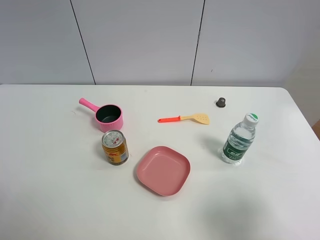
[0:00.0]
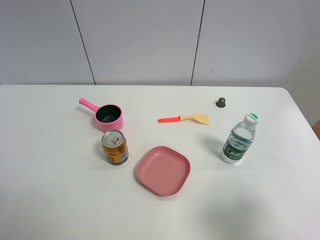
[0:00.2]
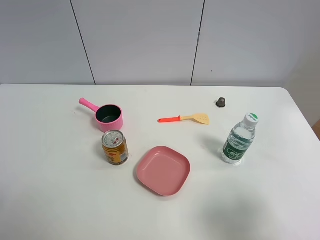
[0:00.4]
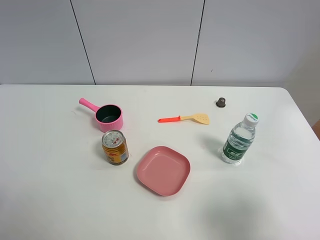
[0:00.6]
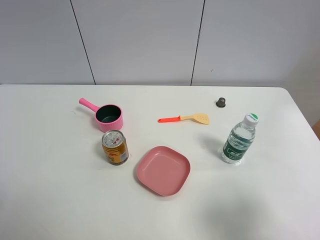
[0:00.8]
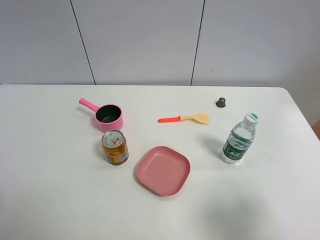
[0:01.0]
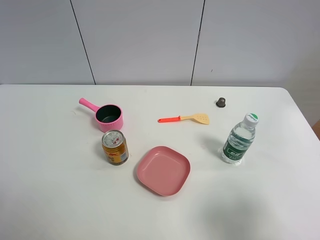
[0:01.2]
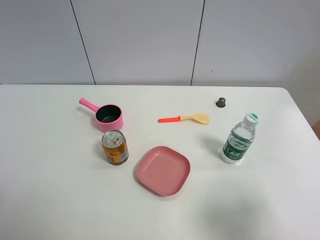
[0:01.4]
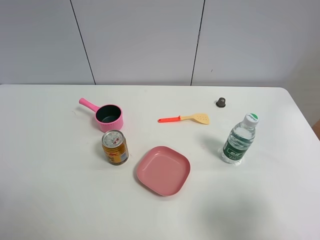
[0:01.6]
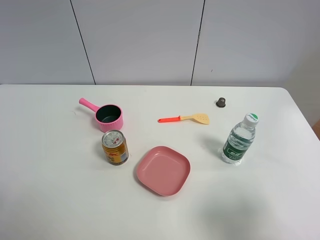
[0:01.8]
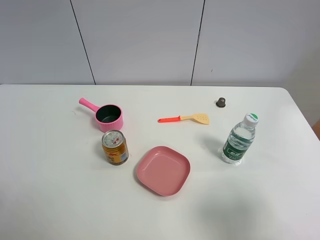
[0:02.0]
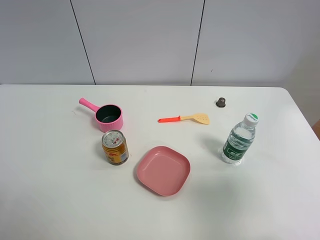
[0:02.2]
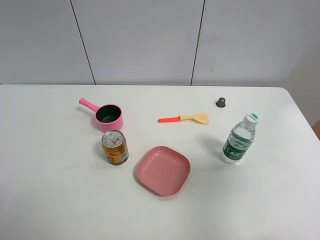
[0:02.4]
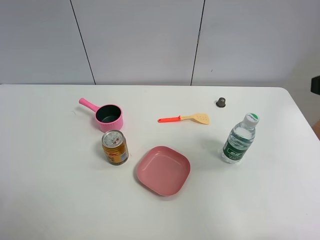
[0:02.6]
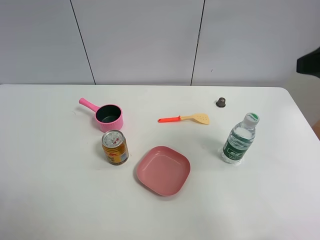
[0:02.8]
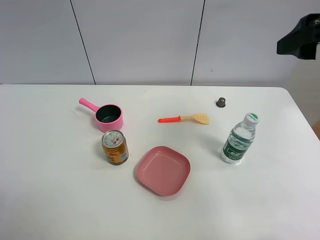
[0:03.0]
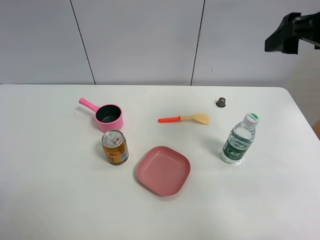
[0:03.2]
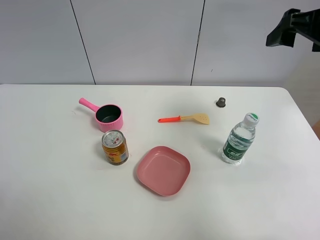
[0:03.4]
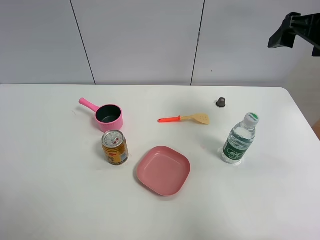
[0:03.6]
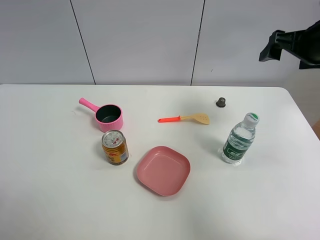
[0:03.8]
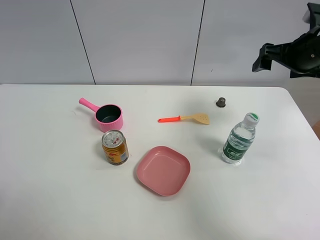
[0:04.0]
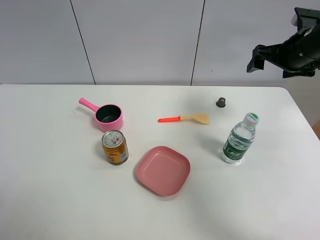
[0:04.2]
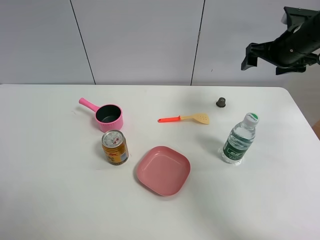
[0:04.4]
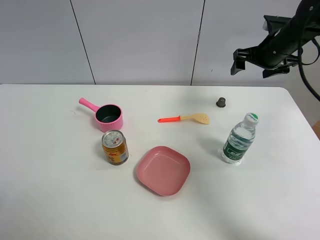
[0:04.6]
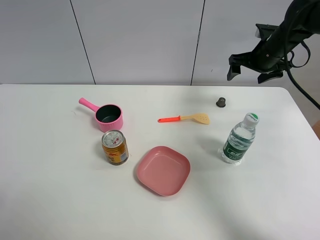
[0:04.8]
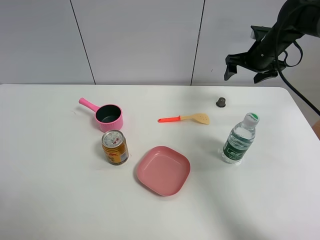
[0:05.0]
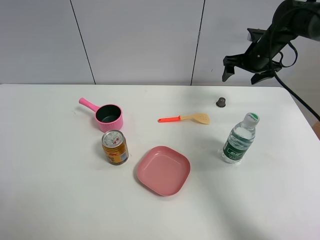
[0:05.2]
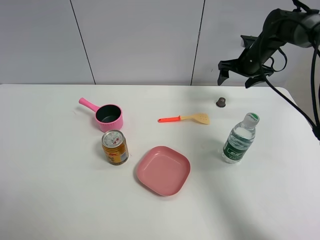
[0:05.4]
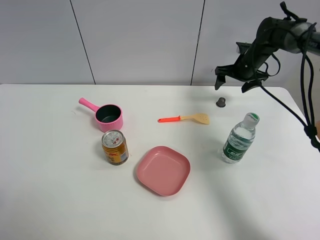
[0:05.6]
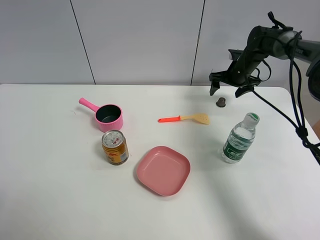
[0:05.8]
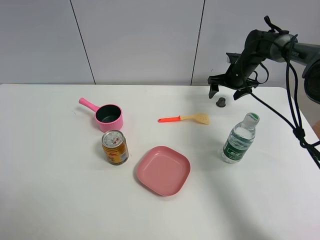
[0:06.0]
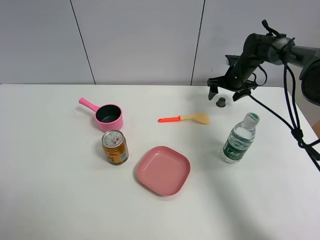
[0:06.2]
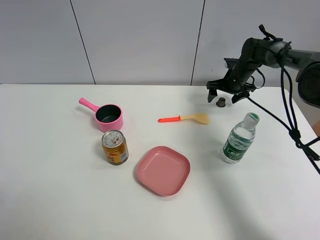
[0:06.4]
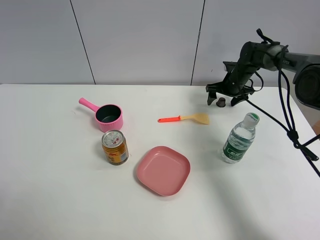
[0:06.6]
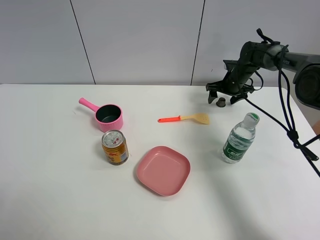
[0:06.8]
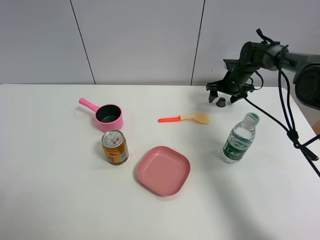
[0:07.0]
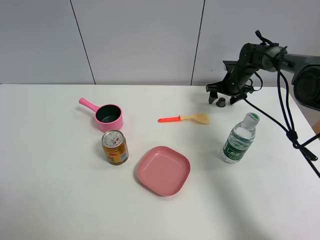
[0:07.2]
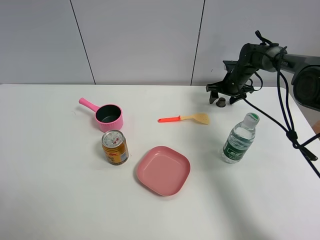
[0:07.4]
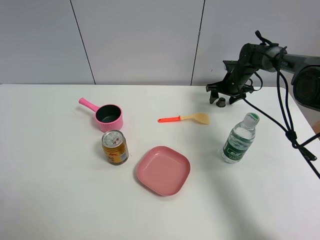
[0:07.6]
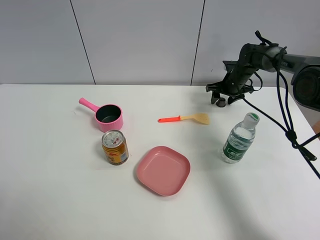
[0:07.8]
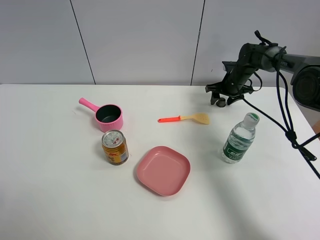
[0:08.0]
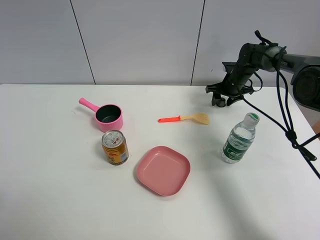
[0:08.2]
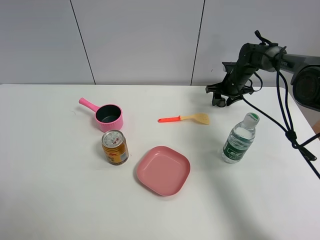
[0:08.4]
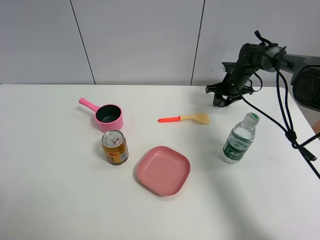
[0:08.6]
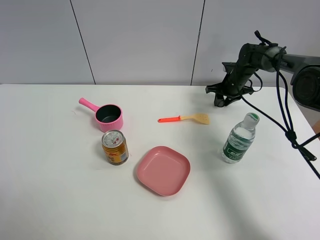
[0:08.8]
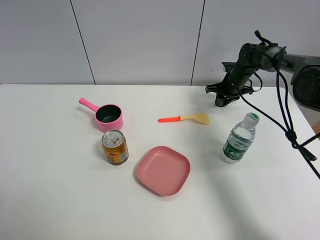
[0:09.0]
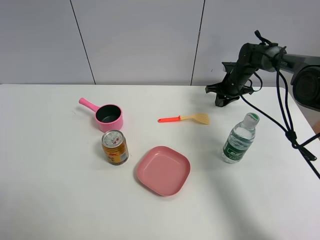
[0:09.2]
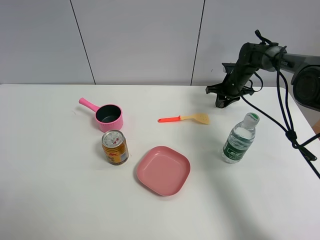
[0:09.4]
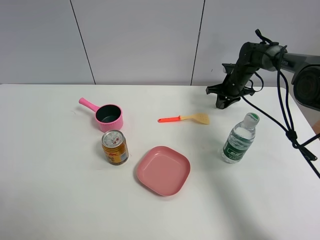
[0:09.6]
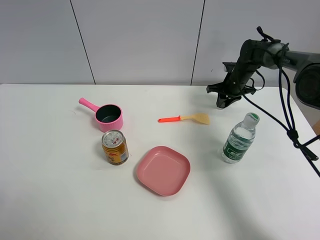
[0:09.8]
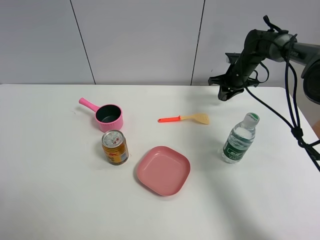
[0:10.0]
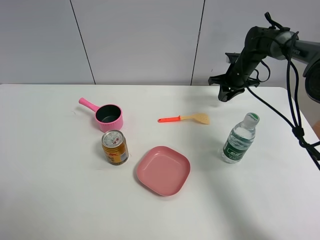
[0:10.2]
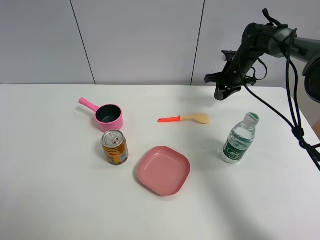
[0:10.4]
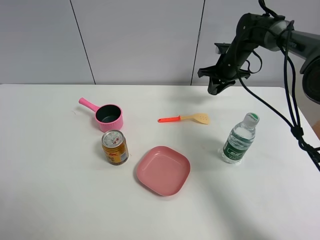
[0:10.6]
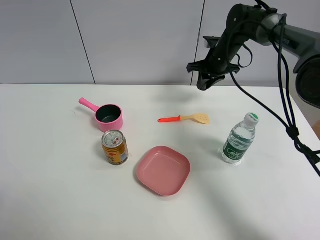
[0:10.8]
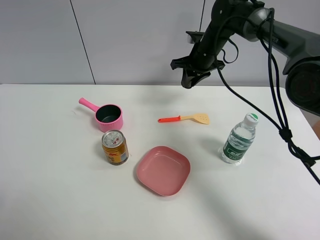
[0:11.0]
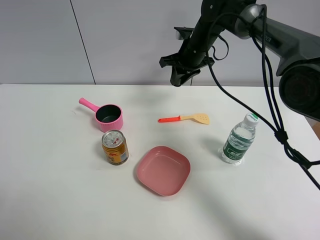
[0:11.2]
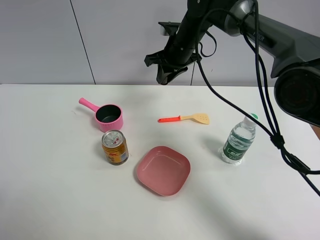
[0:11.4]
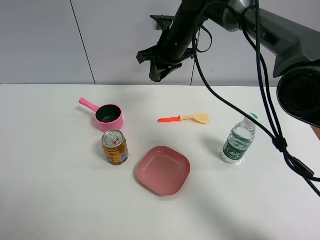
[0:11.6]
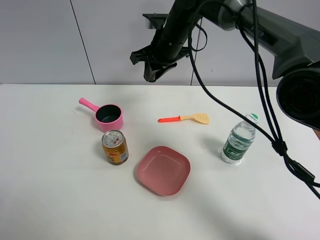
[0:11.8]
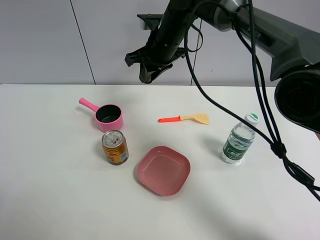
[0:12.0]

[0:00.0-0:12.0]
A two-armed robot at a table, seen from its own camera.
Task of the whole recording: the gripper move the object.
Step, 0:00.0 to 0:08.8: Grasp the coffee capsule with the right gripper.
0:00.0 to 0:01.6: Both grippers stay put.
0:01.6 to 0:03.0: The right gripper travels forward and upward by approximately 25 cm.
0:03.0 to 0:04.4: The right gripper moves forward and downward, roughly 20 cm.
0:04.4 to 0:06.0: The right gripper shifts about 20 cm downward and forward.
0:06.0 to 0:07.6: The grippers stay close to where they were, moving slightly.
0:07.6 to 0:09.0: The right gripper closes its fingers.
0:09.0 to 0:10.4: The right gripper goes approximately 5 cm upward.
0:10.4 to 0:12.0: The right gripper travels to the left, upward and backward by about 25 cm.

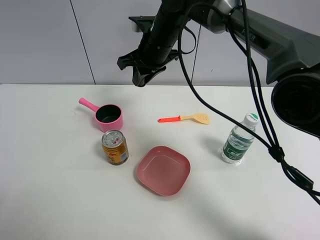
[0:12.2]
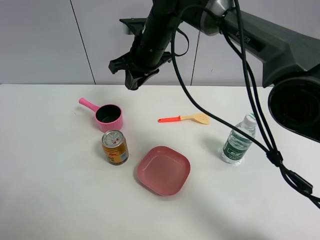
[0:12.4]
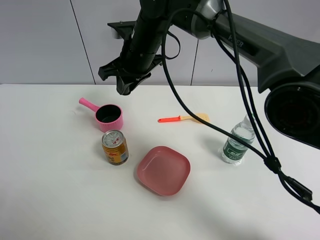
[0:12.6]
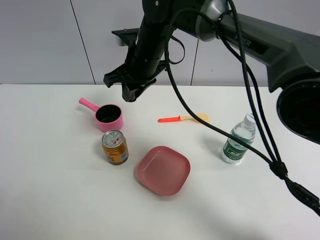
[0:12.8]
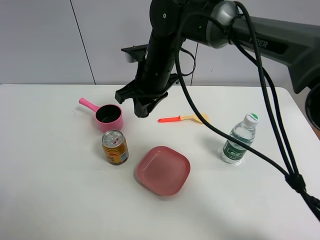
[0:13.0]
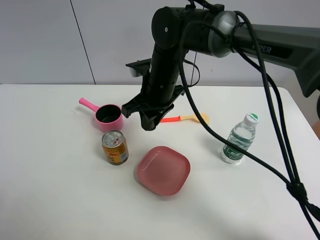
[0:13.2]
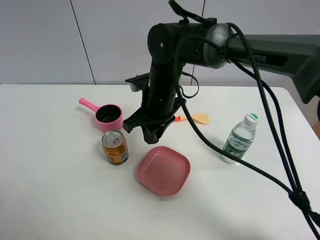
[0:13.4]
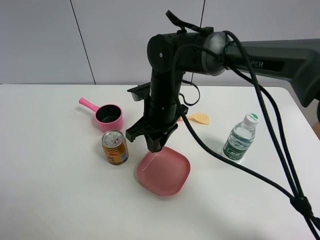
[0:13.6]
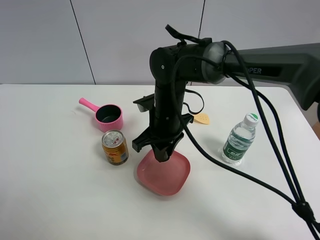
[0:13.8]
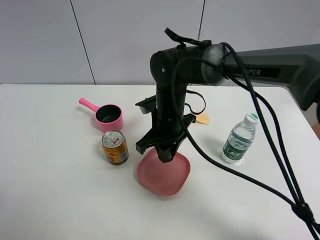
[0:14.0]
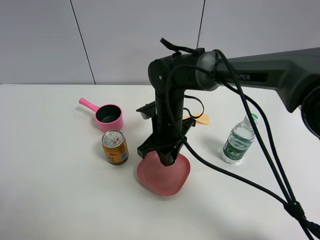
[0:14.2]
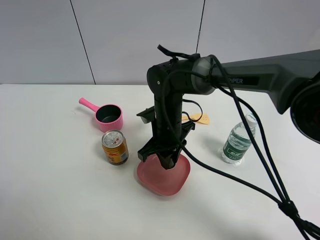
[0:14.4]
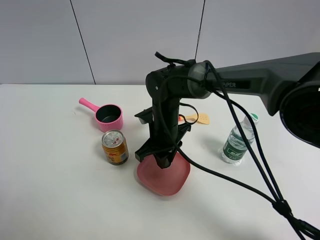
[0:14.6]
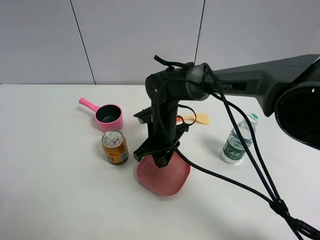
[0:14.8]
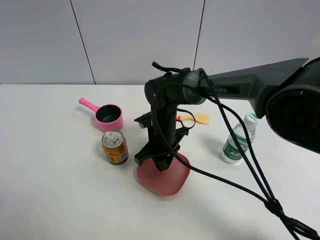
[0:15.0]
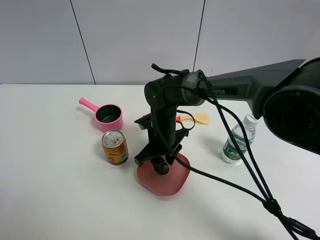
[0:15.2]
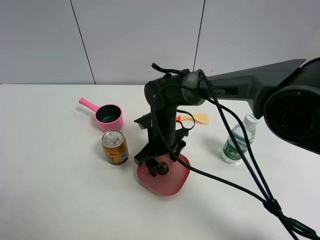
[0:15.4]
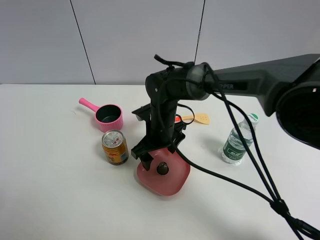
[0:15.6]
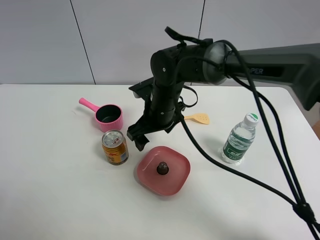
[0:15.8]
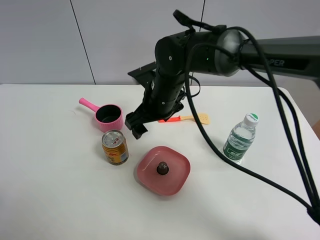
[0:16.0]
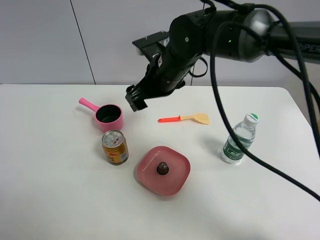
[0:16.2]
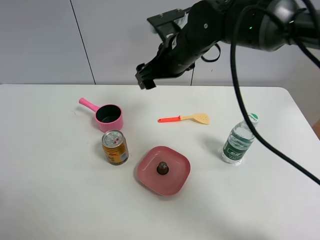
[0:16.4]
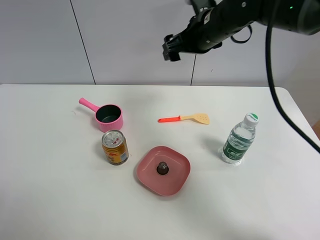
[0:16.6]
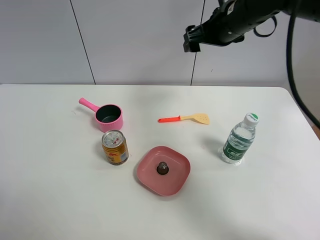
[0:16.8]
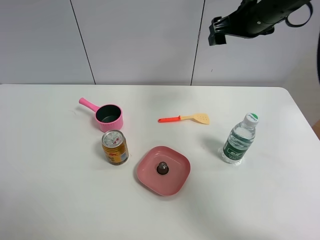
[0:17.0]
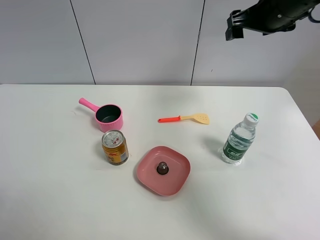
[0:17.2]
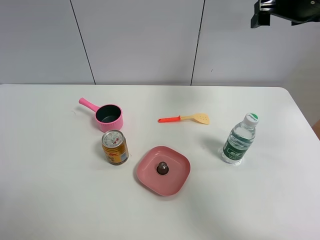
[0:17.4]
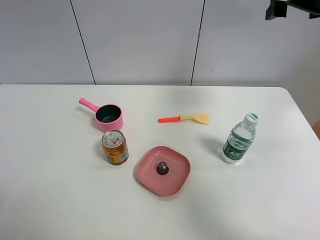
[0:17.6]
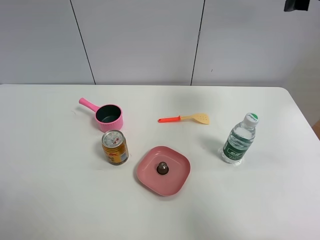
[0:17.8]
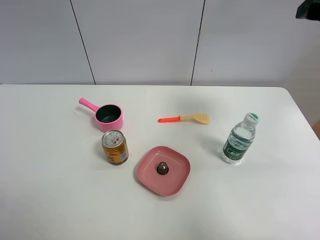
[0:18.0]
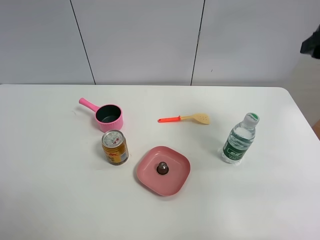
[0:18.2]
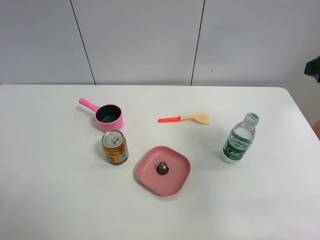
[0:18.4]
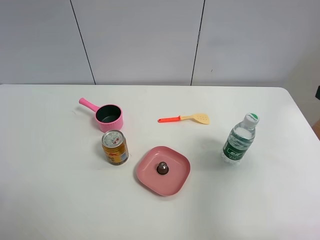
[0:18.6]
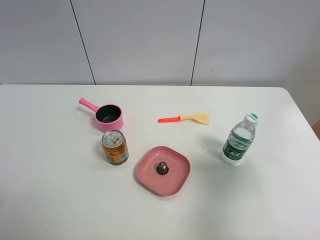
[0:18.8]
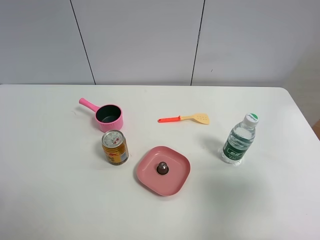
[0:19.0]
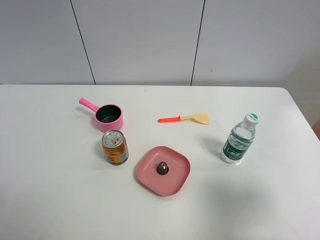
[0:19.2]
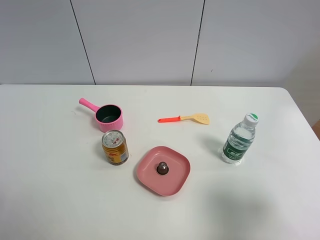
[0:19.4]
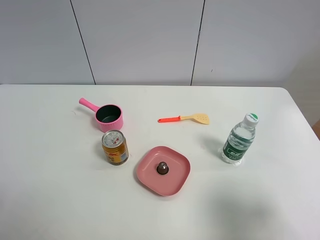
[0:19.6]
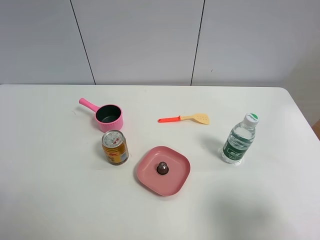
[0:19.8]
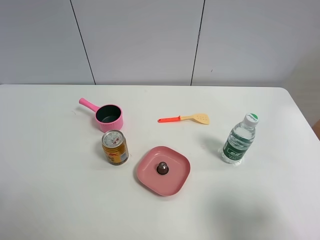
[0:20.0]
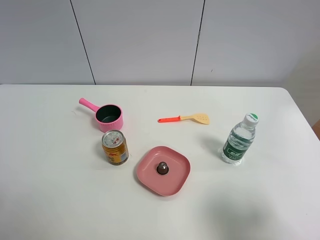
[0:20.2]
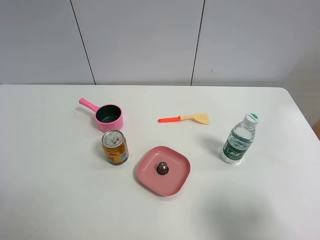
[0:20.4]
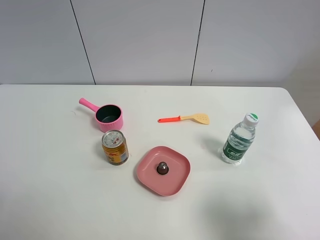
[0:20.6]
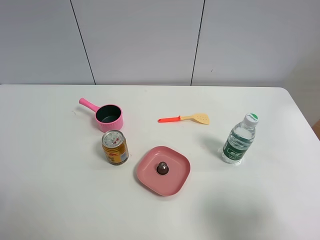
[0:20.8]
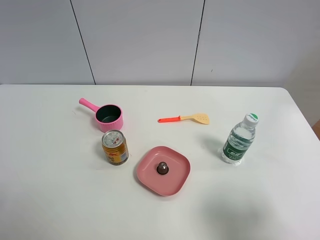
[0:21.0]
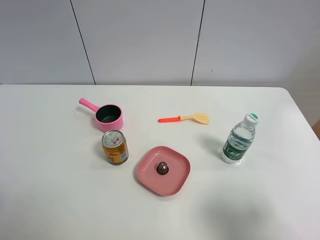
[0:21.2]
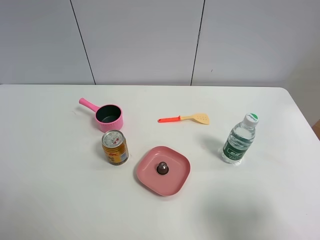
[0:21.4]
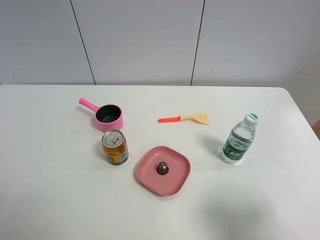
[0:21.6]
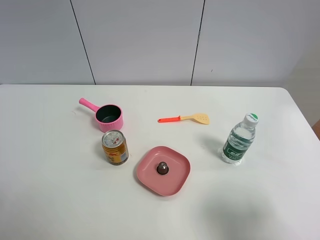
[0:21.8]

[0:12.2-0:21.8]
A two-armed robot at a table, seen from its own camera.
Task of the whole recording: the gripper move the object.
Step, 0:12.2 to 0:15.6: Place the coffee capsule into the pink plate with the right gripper.
0:12.2 to 0:13.8: The right gripper moves backward and downward, roughly 15 cm.
0:13.8 to 0:15.4: The right gripper moves downward, approximately 5 cm, and opens up.
0:15.4 to 0:17.0: The right gripper travels upward and to the right by some 30 cm.
0:17.0 to 0:18.6: The right gripper heads backward, covering some 25 cm.
0:18.6 to 0:20.2: The right gripper shifts approximately 15 cm backward and downward.
0:20.2 to 0:21.8: Both grippers stay about where they are.
